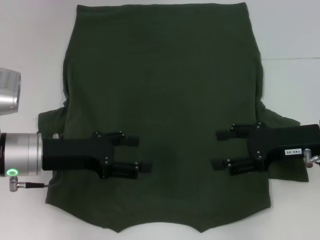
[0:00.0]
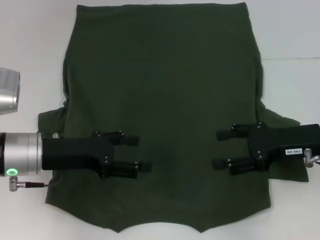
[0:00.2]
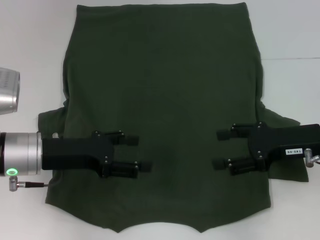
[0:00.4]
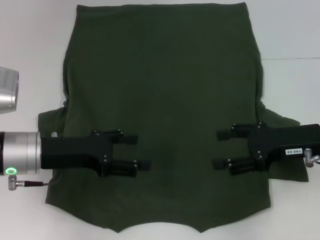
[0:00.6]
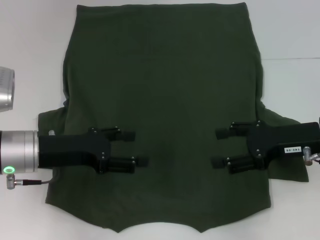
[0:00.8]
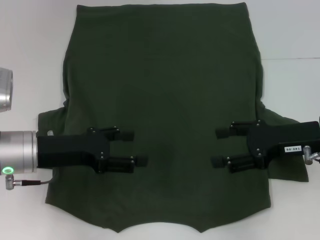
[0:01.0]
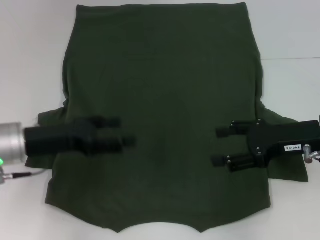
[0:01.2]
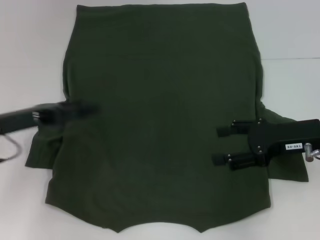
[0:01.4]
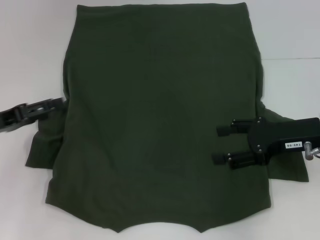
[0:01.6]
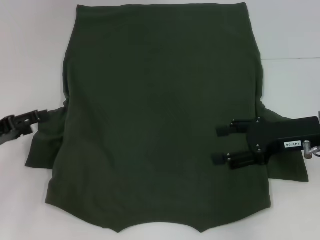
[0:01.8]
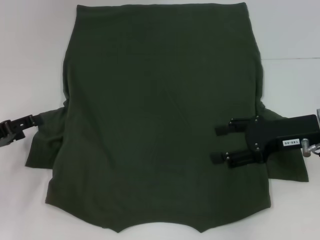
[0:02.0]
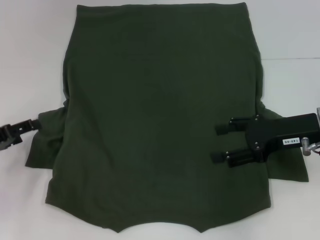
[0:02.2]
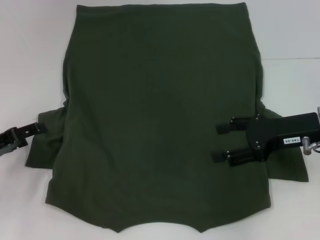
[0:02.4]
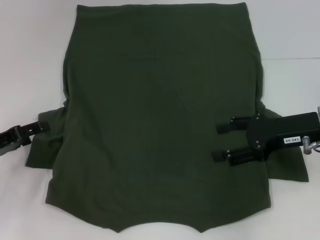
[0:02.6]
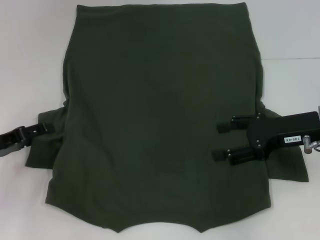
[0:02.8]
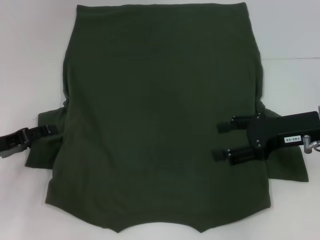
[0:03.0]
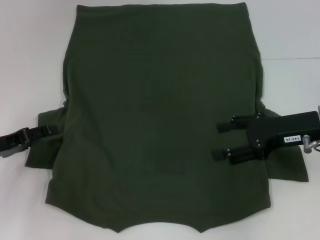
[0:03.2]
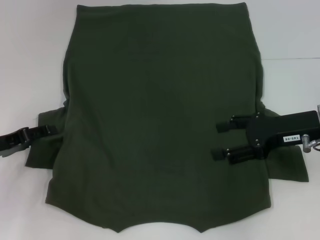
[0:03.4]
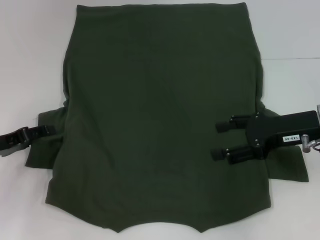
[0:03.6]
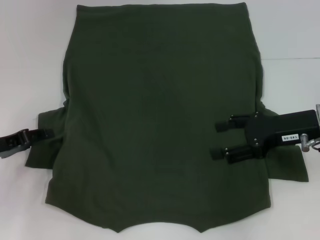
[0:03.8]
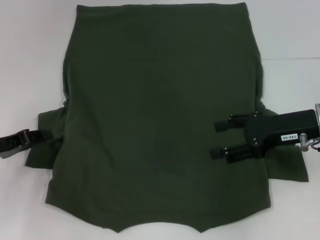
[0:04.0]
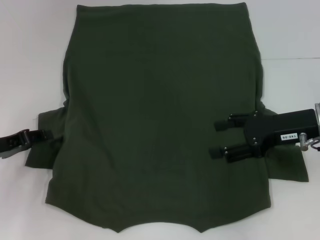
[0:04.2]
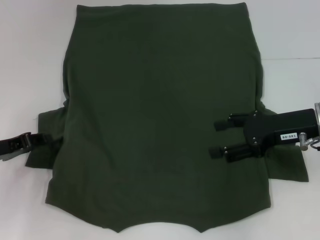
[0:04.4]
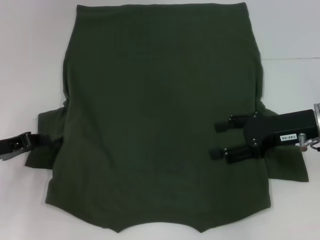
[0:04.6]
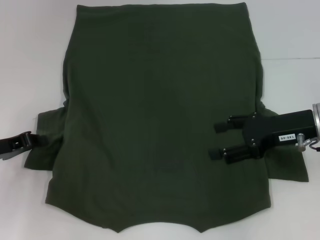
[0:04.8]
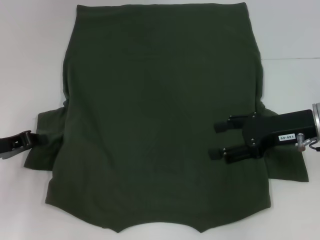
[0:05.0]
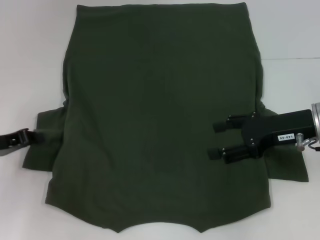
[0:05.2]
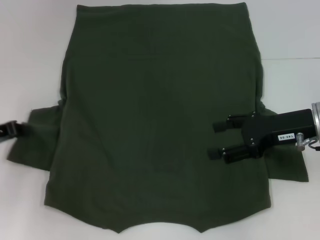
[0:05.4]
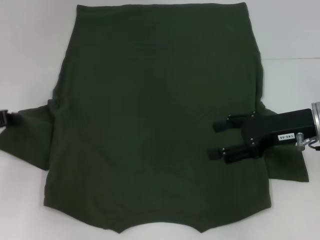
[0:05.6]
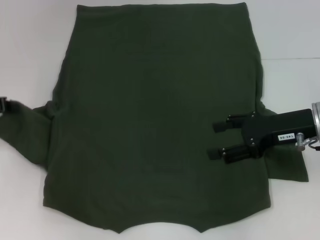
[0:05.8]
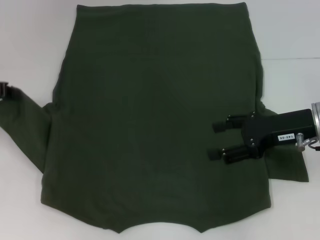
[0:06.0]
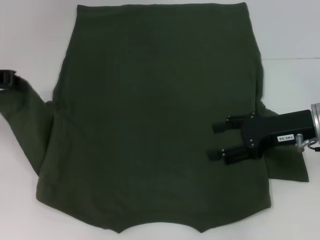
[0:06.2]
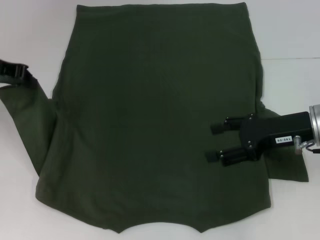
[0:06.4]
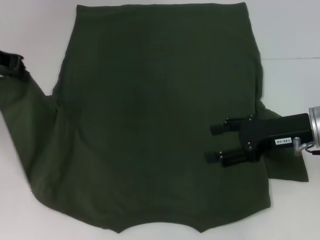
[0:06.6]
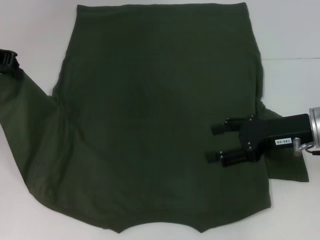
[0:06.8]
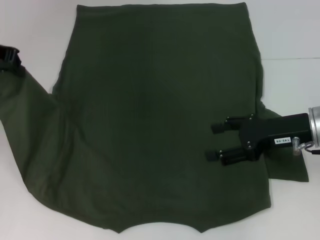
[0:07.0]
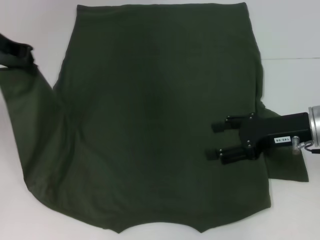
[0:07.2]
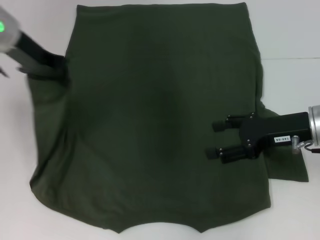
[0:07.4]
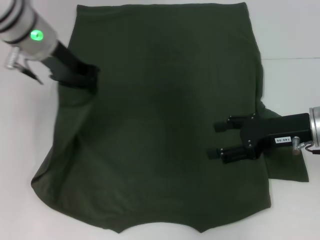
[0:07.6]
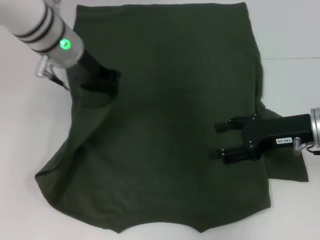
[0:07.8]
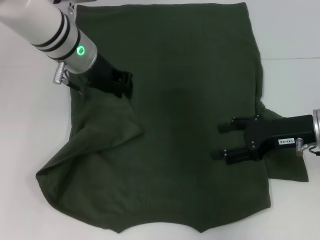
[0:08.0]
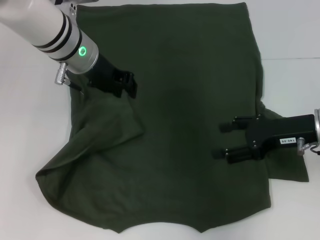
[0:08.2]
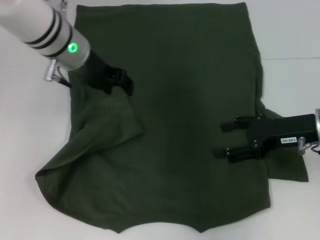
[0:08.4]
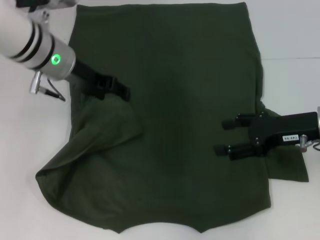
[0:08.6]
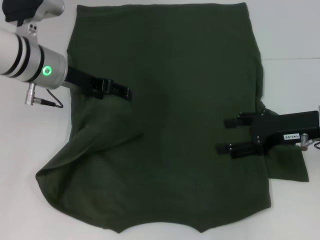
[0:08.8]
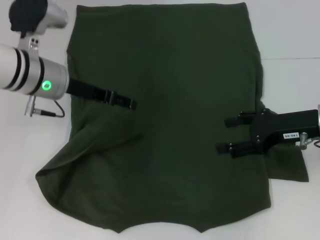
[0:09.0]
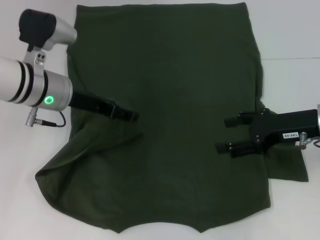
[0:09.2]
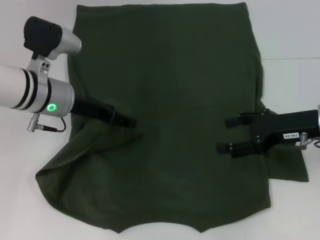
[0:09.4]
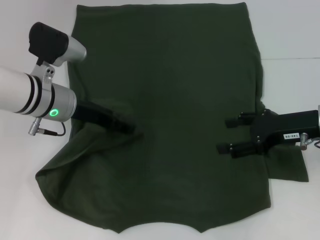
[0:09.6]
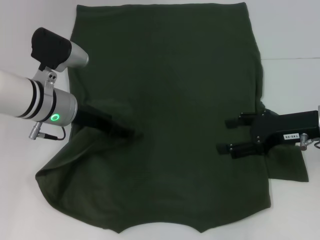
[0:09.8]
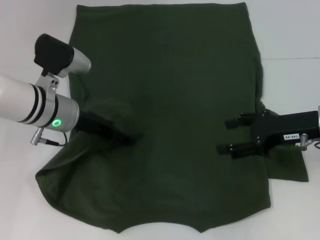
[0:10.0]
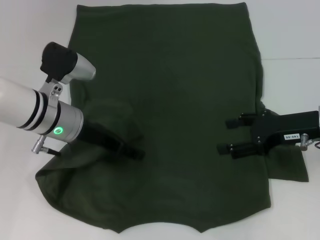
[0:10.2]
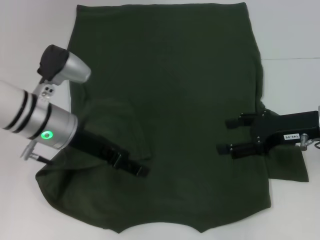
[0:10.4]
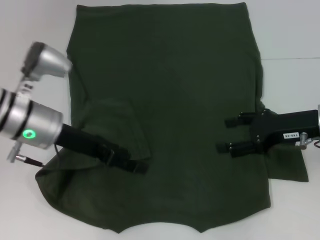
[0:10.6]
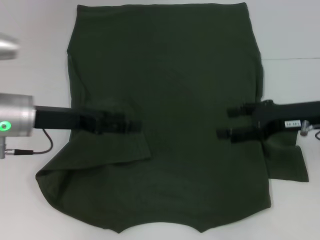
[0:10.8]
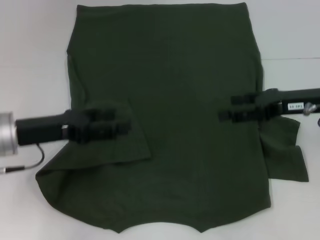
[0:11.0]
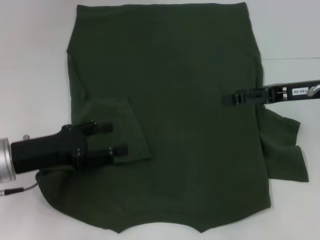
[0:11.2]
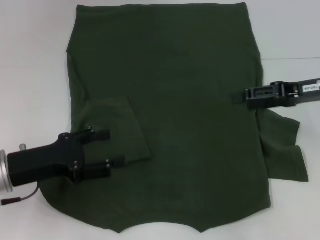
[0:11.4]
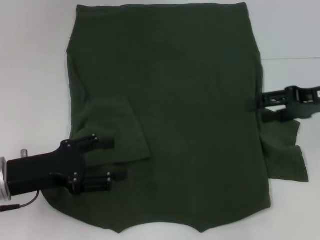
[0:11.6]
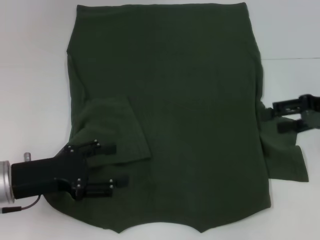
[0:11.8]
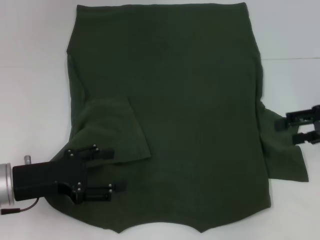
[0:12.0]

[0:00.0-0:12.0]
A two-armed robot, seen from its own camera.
Step, 0:00.0 to 0:08.0: Fold the bottom left sleeve with your left hand.
0:00.0 to 0:01.6: The left gripper shifts some 10 cm to the left.
0:01.6 to 0:03.0: The grippers stay close to where they were, moving slightly.
0:03.0 to 0:04.4: The left gripper closes up.
0:04.4 to 0:06.0: The left gripper shifts about 10 cm upward and forward, and closes up.
0:06.0 to 0:07.6: The left gripper goes about 15 cm to the right.
0:07.6 to 0:09.0: The left gripper travels downward by about 5 cm, and opens its fingers.
0:09.0 to 0:10.4: The left gripper changes place by approximately 5 cm.
0:10.4 to 0:12.0: The right gripper travels to the right by some 10 cm. Meanwhile the left gripper goes approximately 10 cm backward and to the left.

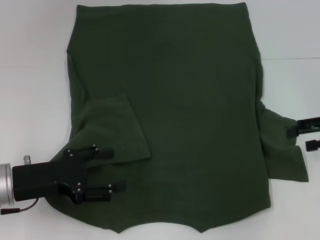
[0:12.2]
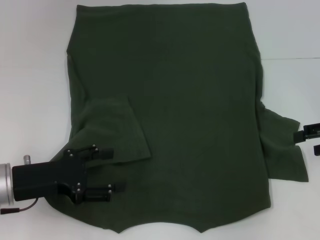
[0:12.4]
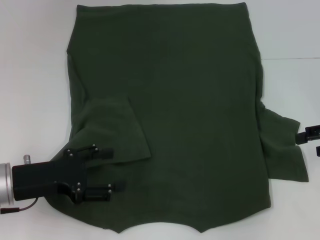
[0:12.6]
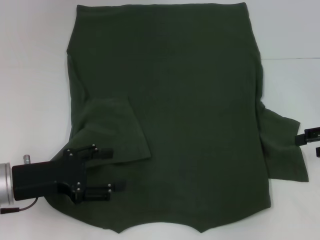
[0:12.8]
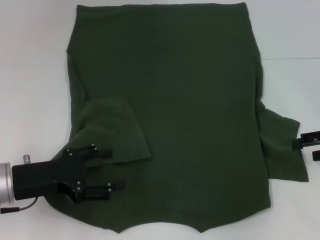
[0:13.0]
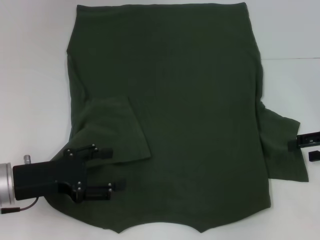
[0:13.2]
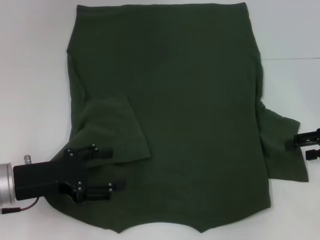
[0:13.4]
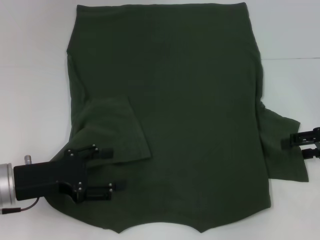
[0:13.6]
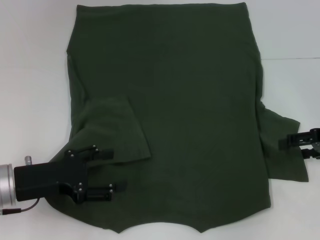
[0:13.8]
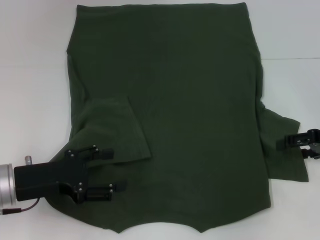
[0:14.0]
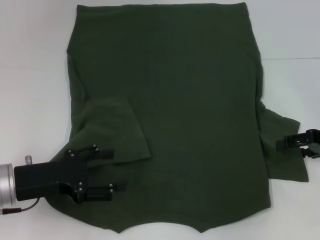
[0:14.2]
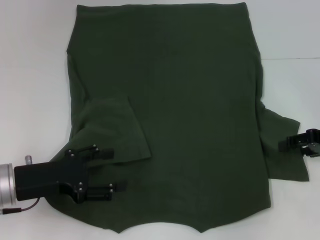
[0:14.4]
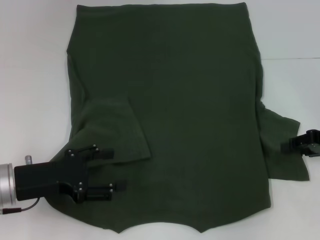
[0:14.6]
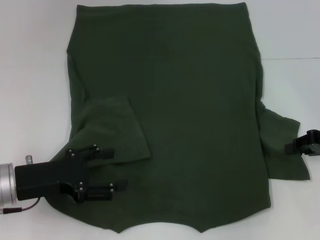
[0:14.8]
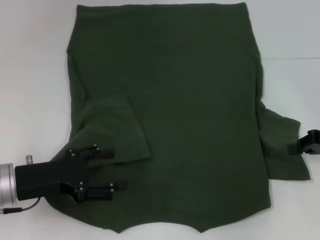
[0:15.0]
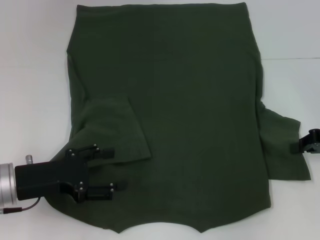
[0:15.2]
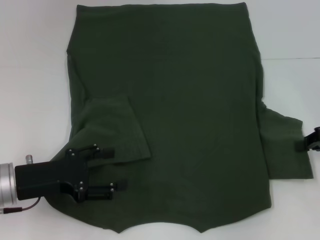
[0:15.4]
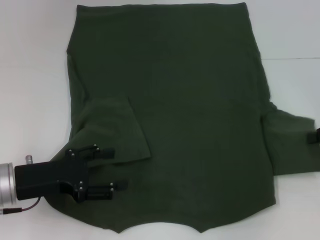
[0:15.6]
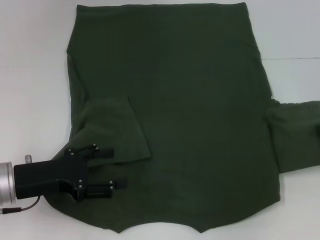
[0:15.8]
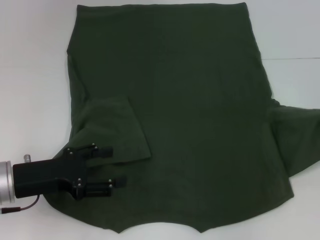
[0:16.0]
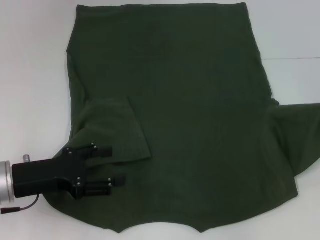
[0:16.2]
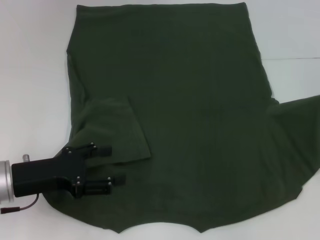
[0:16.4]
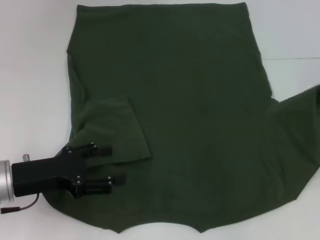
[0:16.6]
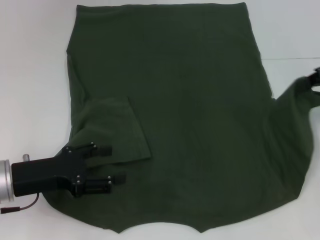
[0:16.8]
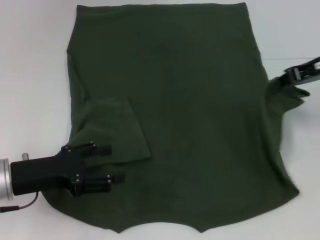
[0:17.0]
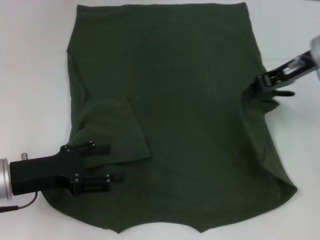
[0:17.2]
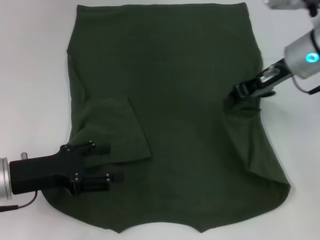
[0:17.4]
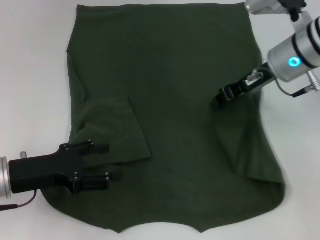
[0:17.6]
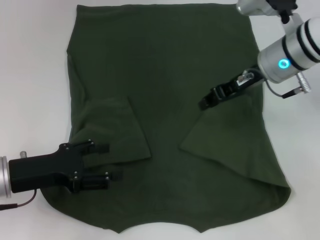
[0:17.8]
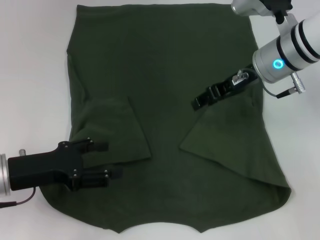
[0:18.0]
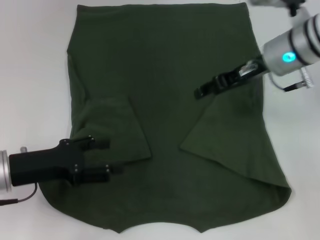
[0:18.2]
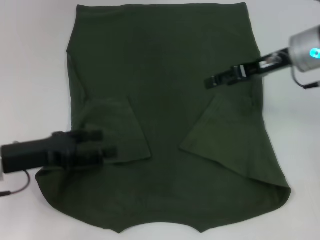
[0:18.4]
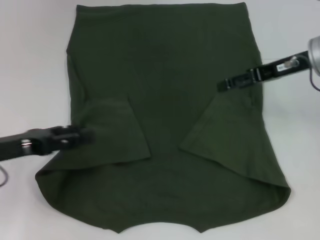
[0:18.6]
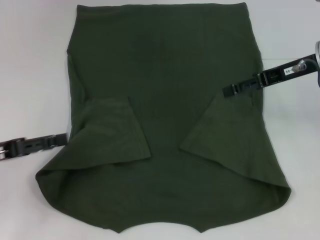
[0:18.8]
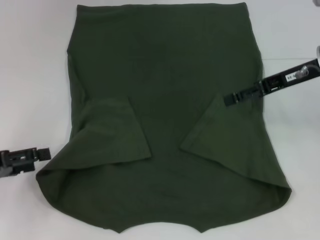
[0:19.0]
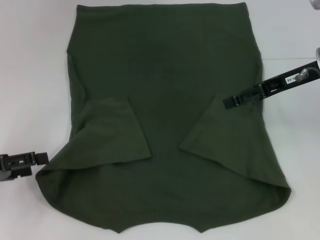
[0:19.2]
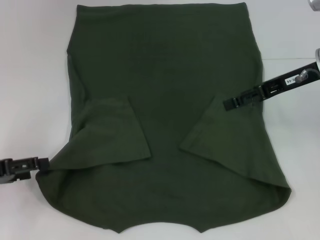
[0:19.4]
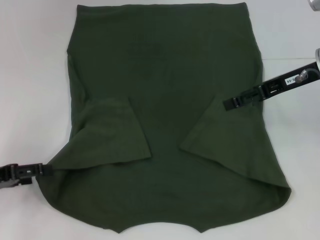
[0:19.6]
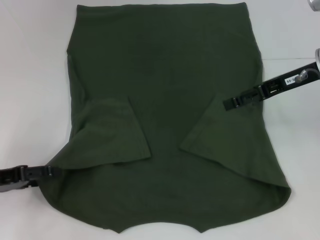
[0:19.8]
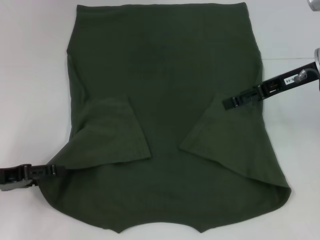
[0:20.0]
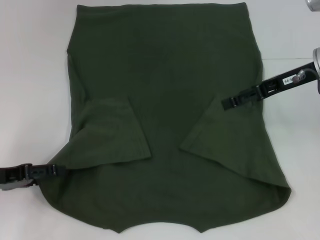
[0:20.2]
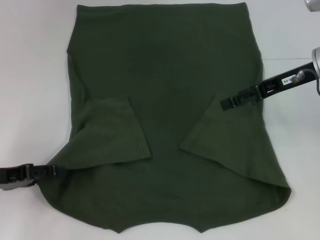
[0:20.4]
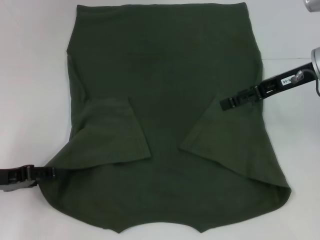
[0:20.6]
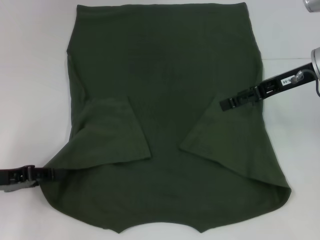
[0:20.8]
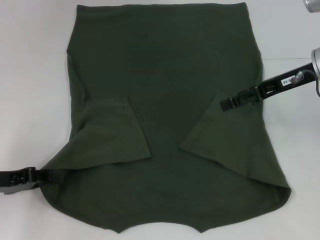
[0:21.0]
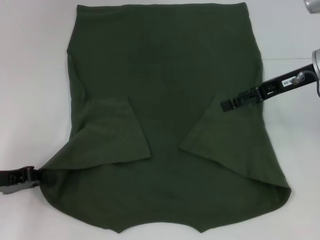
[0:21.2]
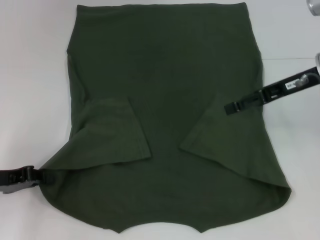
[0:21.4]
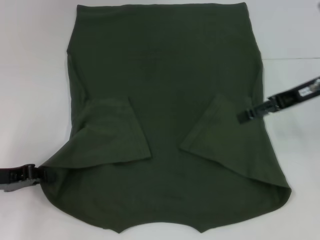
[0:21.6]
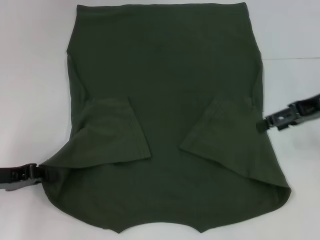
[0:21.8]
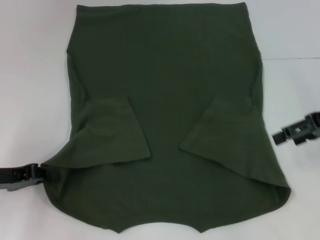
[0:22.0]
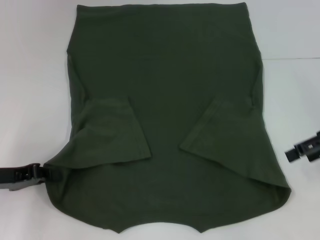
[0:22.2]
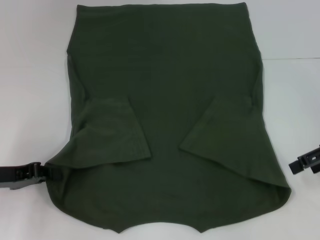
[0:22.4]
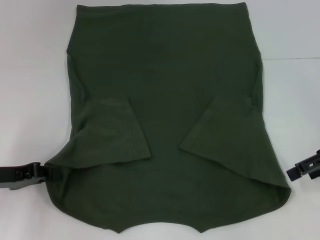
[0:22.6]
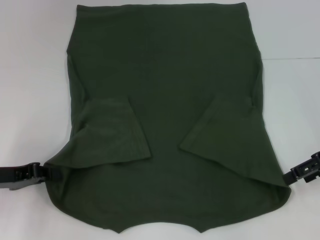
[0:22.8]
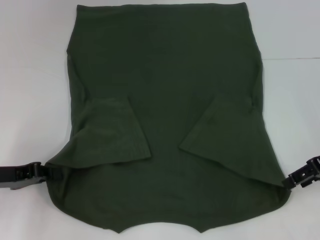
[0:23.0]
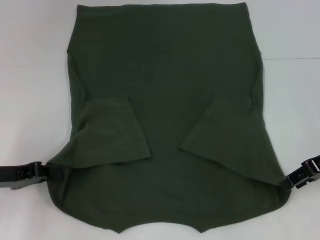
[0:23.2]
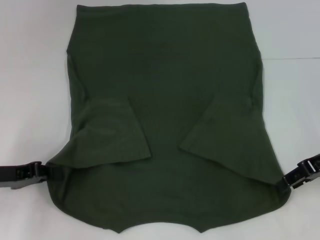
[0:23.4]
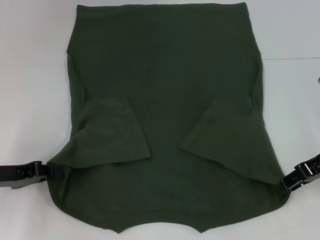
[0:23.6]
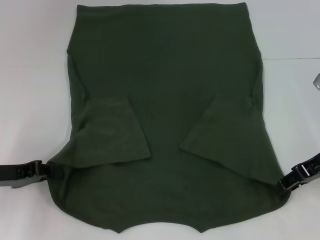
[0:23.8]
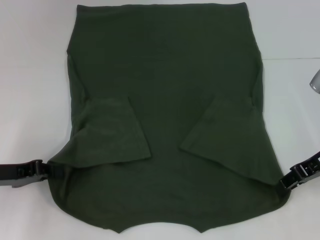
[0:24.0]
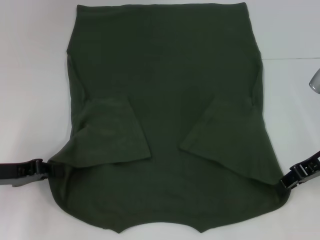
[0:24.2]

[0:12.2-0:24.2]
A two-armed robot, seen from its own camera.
Step, 0:12.2 to 0:17.8: Fold the bottom right sleeve with your right hand.
Step, 0:18.0 to 0:21.6: Grab the bottom left corner with your left hand.
0:12.2 to 0:13.8: The grippers move only a little.
0:13.8 to 0:15.2: The right gripper closes.
0:15.2 to 0:16.6: The right gripper goes about 10 cm upward.
0:16.6 to 0:18.2: The right gripper shifts roughly 20 cm to the left, and opens its fingers.
0:18.2 to 0:19.8: The left gripper travels to the left by roughly 10 cm. Meanwhile the right gripper is displaced to the right by roughly 5 cm, and opens its fingers.
0:19.8 to 0:21.2: The left gripper closes up.
0:21.2 to 0:22.6: The right gripper moves to the right and backward, roughly 10 cm.
0:22.6 to 0:24.2: The right gripper moves about 5 cm, and closes its fingers.
